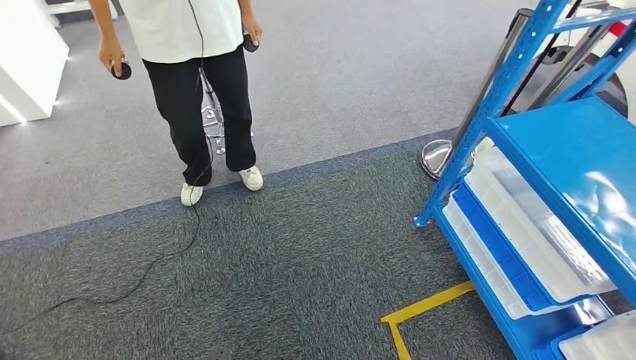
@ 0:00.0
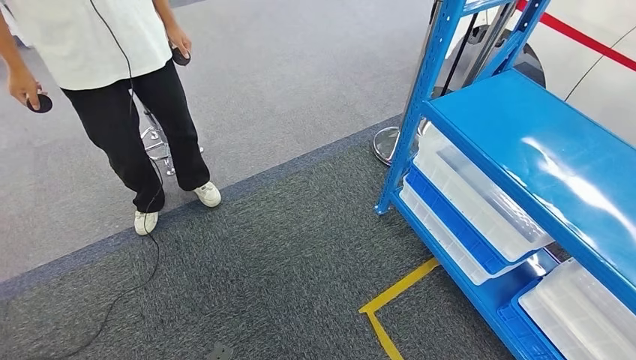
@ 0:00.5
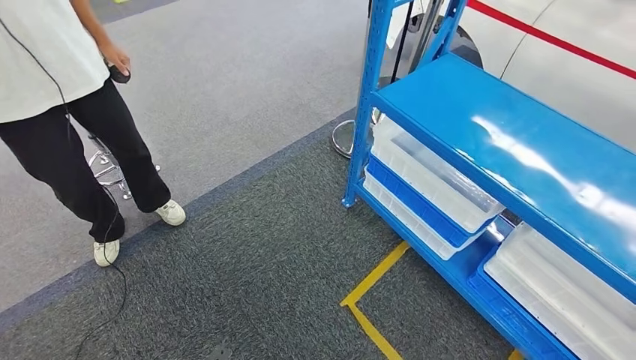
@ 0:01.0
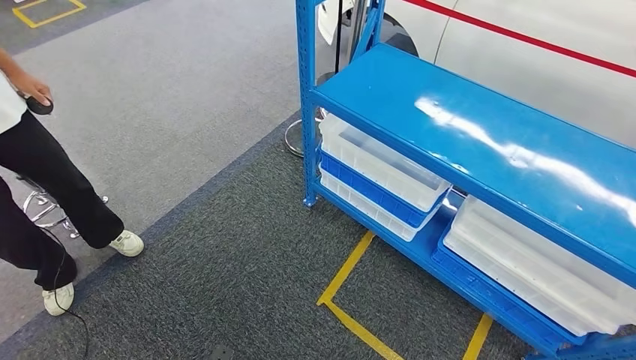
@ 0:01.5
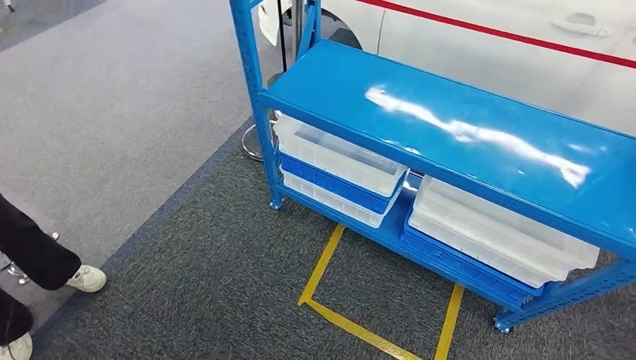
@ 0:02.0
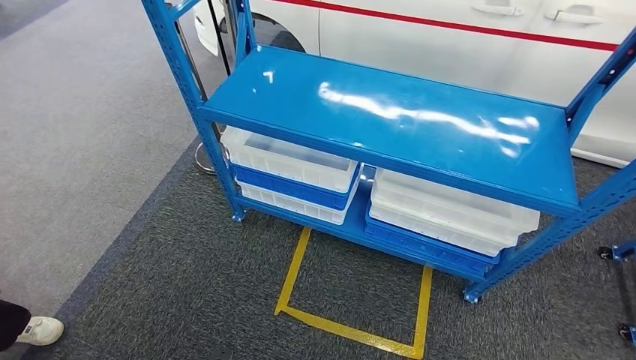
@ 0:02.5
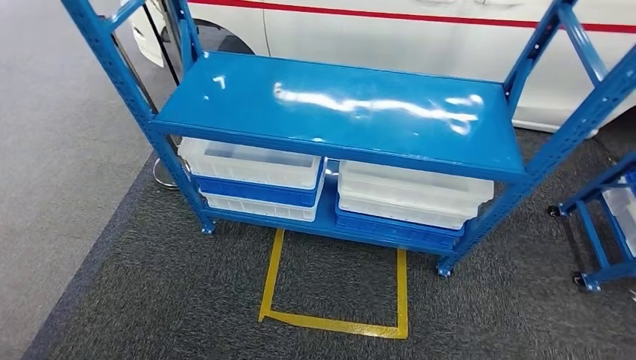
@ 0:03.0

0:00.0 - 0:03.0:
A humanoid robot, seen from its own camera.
Step, 0:00.0 - 0:03.0: Move to the initial position of the shelf.
